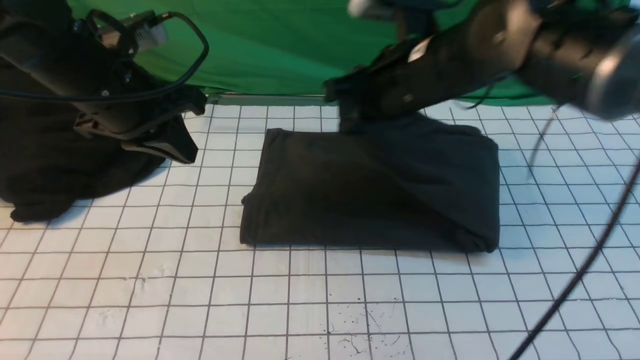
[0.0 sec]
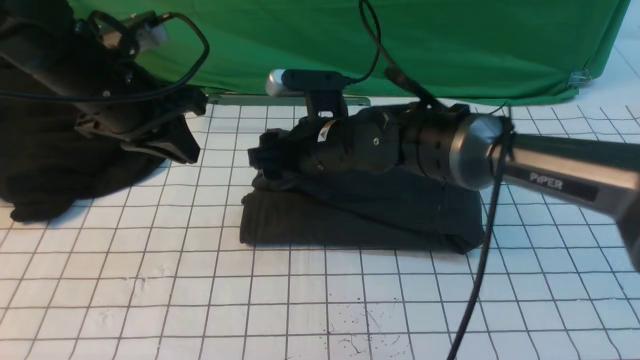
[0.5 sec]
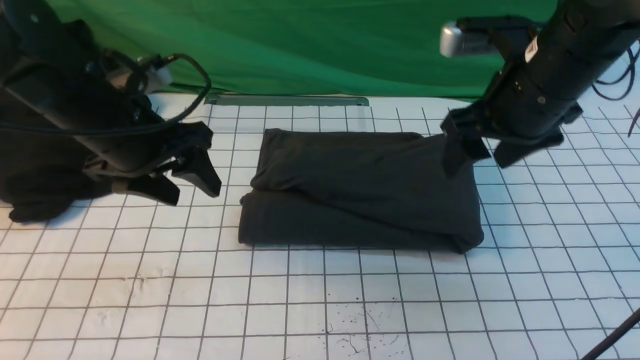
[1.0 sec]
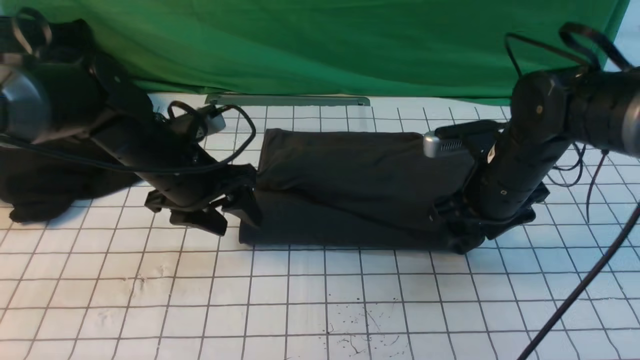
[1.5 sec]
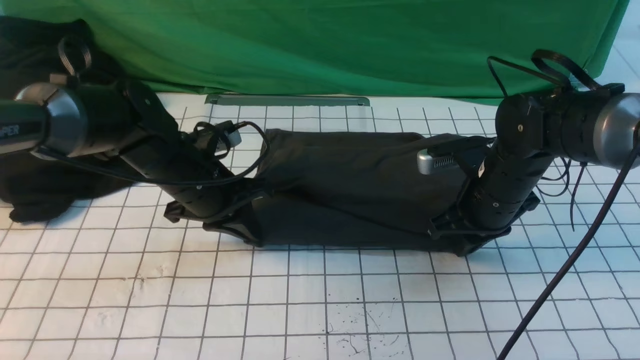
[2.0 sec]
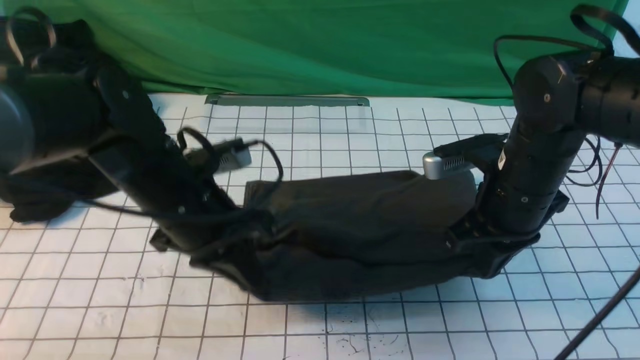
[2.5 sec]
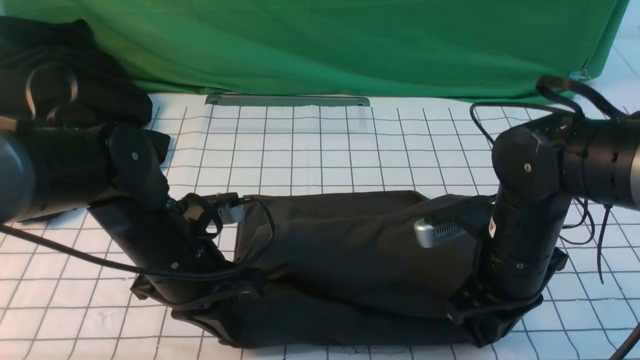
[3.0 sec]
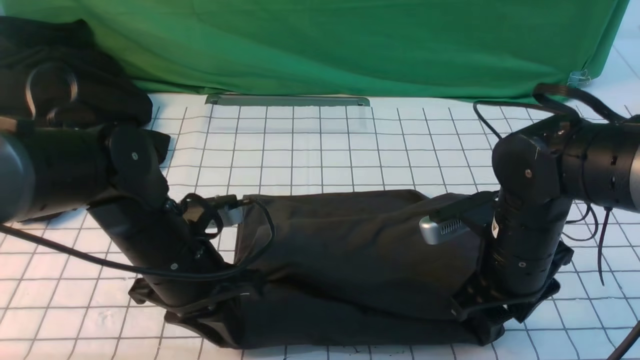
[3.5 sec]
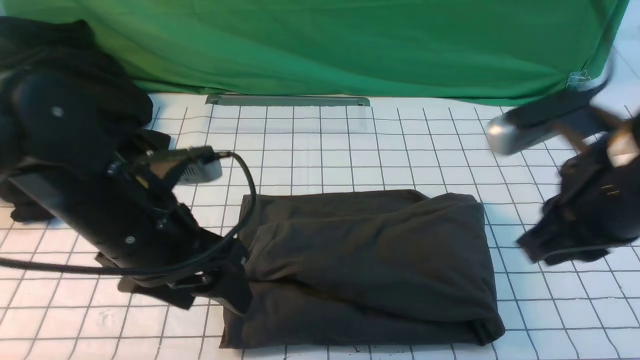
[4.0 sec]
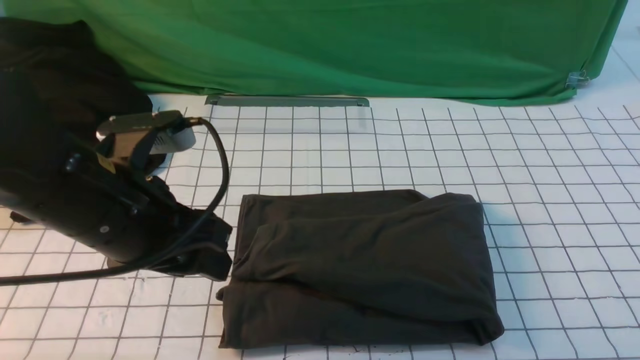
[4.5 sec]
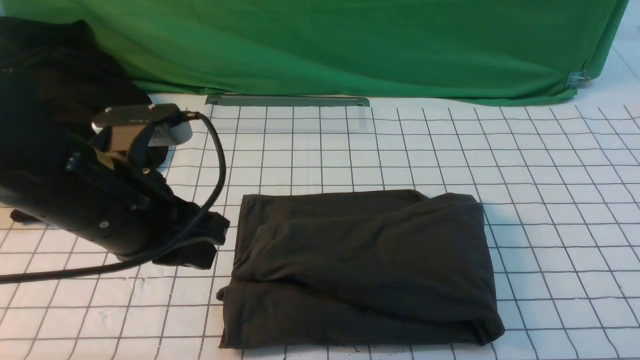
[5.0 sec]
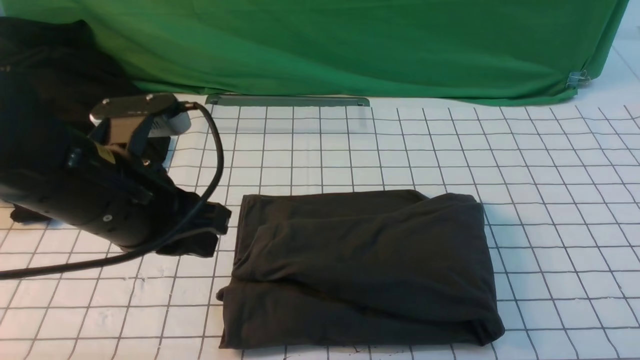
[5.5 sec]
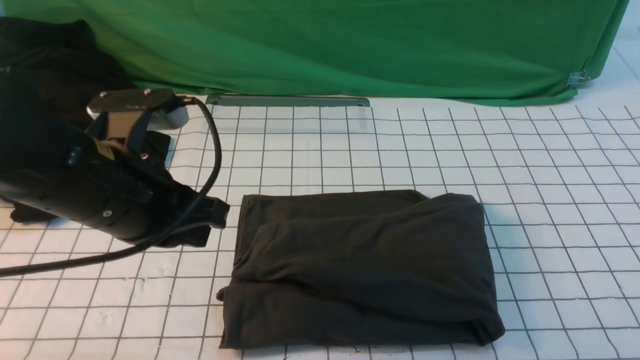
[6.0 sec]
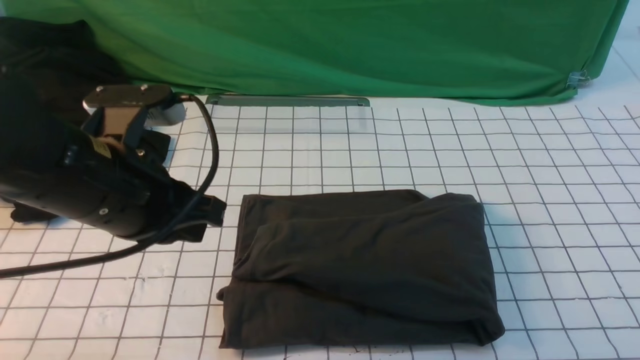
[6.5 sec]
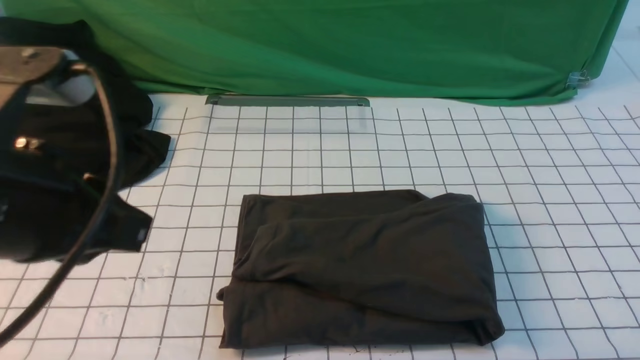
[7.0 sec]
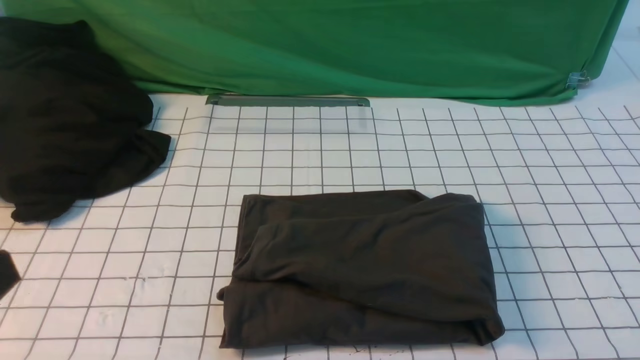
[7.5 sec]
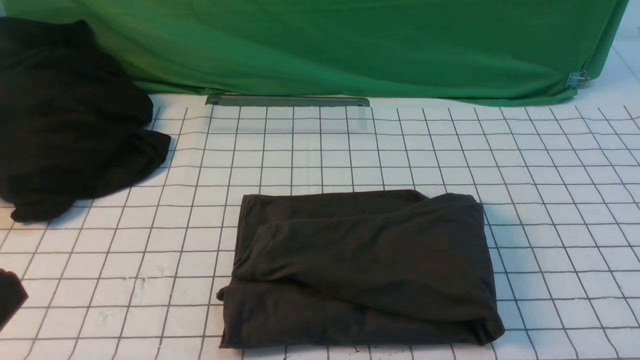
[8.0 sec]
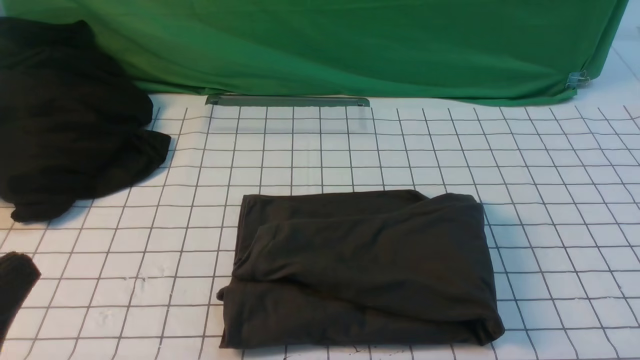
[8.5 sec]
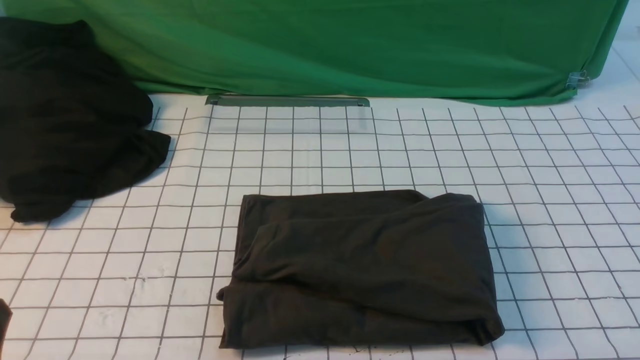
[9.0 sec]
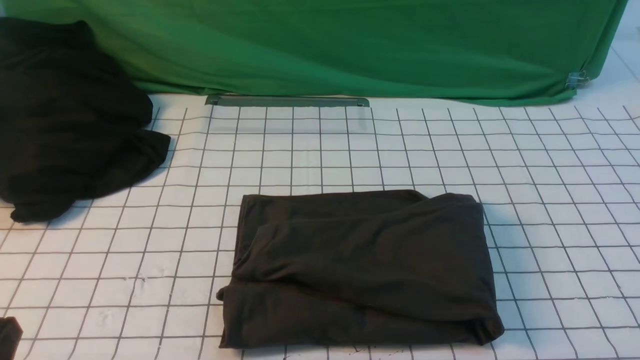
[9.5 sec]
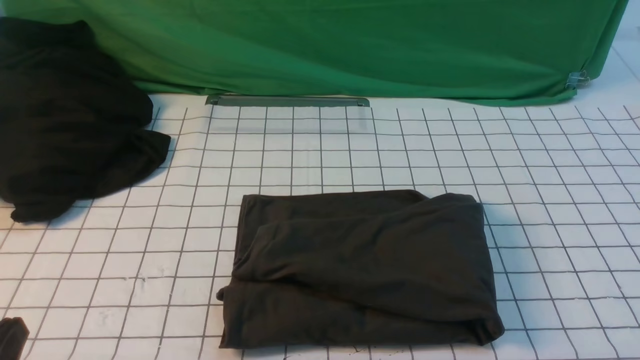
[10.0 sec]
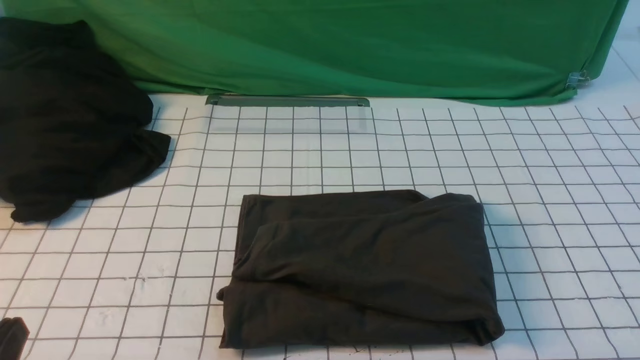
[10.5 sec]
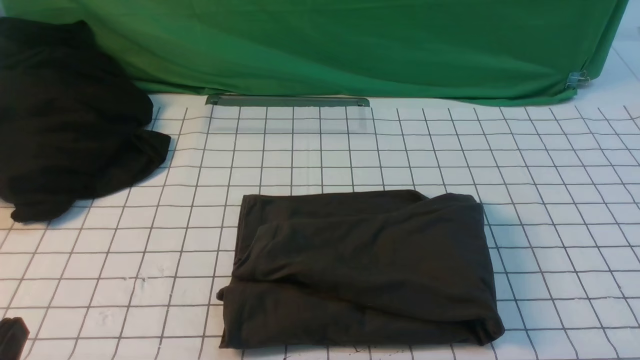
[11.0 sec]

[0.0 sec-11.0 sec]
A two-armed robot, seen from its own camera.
0.0 sec to 2.0 sec: Both grippers travel together downward and to the right, about 15 cm. The left gripper opens, then closes once more. Meanwhile the right gripper opens, then closes once more.
2.0 sec to 3.5 sec: The grippers both shift backward by approximately 10 cm.
3.5 sec to 5.5 sec: The left gripper goes about 10 cm upward, and opens, then closes again. Meanwhile the right gripper heads backward, to the right and upward, covering roughly 30 cm, and closes.
5.5 sec to 7.5 sec: The right gripper goes approximately 15 cm downward. Meanwhile the left gripper travels backward by approximately 20 cm.
9.0 sec to 11.0 sec: Both grippers stay put.

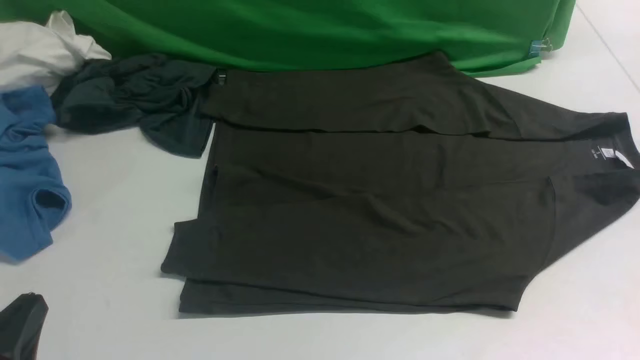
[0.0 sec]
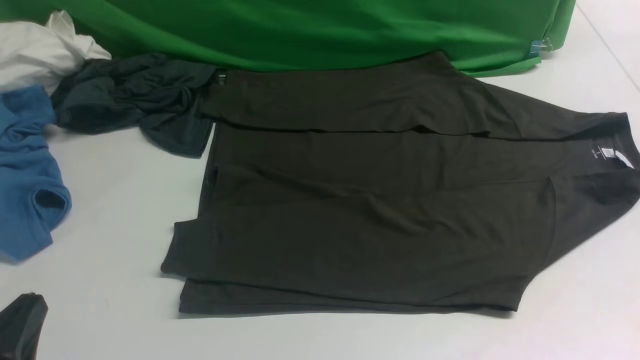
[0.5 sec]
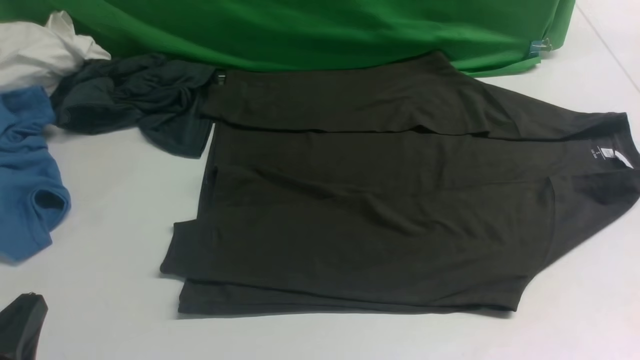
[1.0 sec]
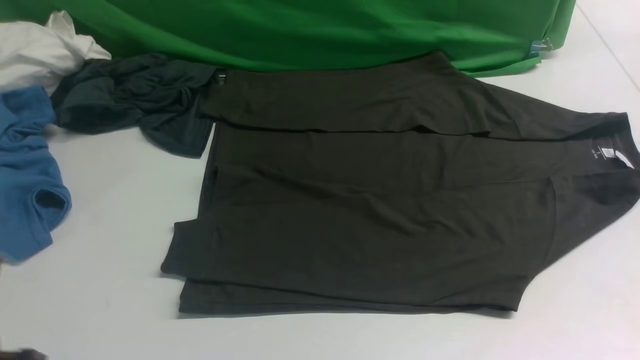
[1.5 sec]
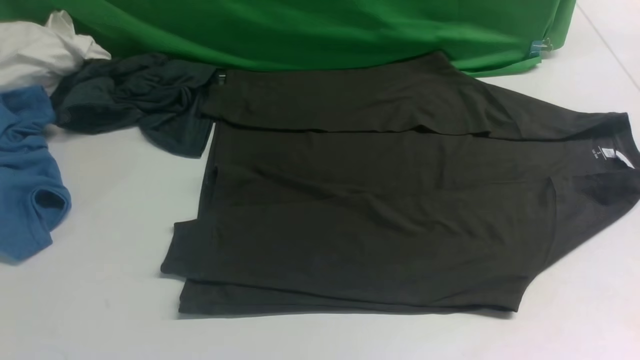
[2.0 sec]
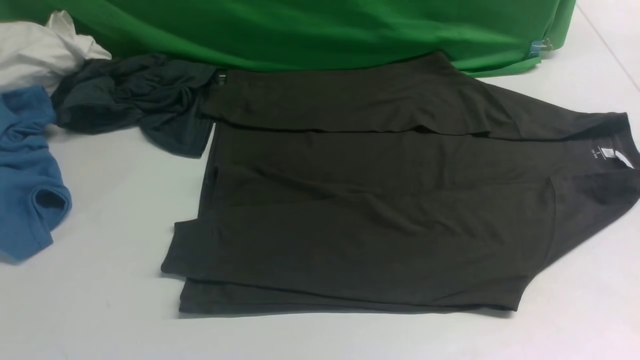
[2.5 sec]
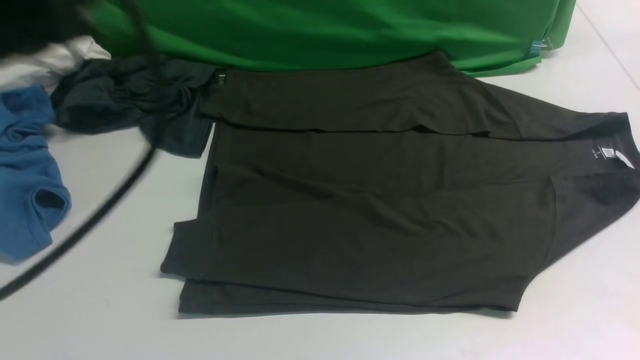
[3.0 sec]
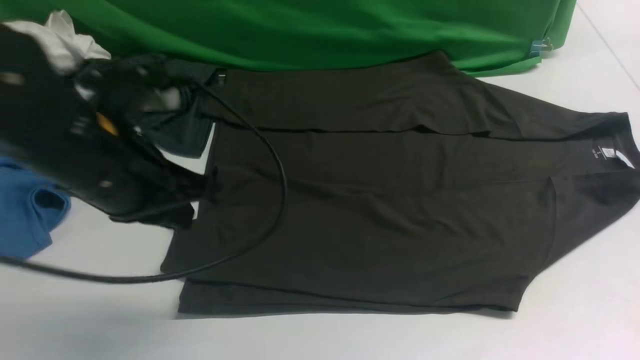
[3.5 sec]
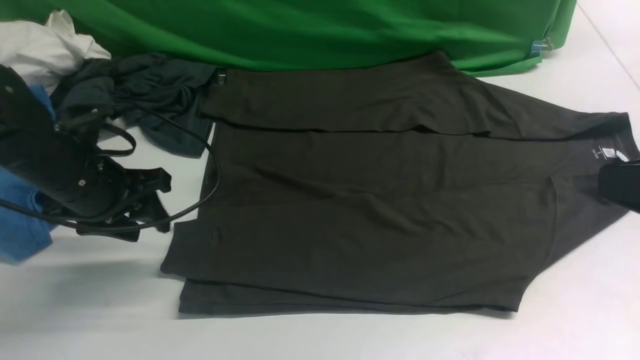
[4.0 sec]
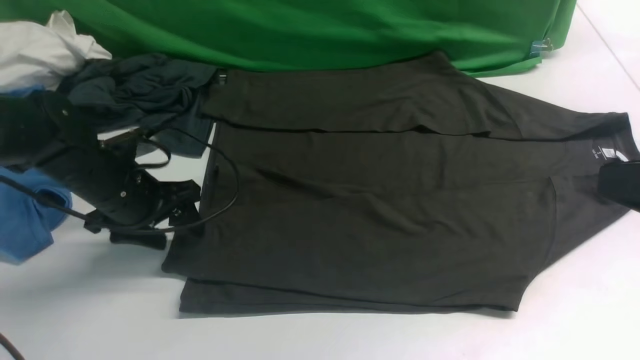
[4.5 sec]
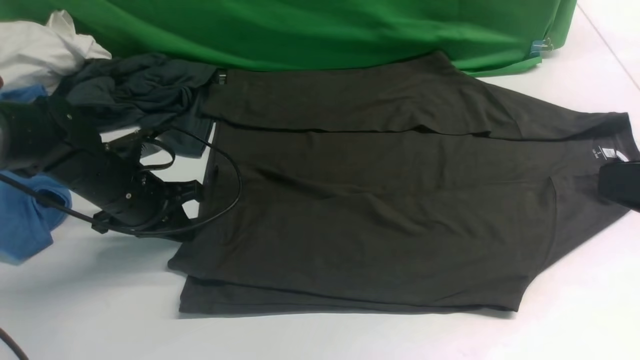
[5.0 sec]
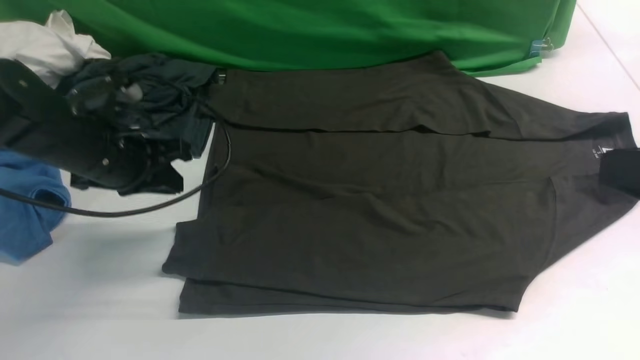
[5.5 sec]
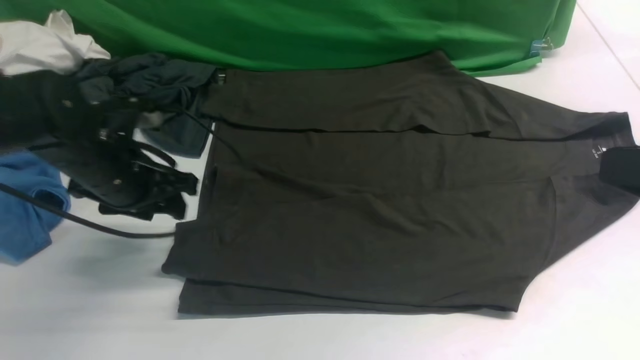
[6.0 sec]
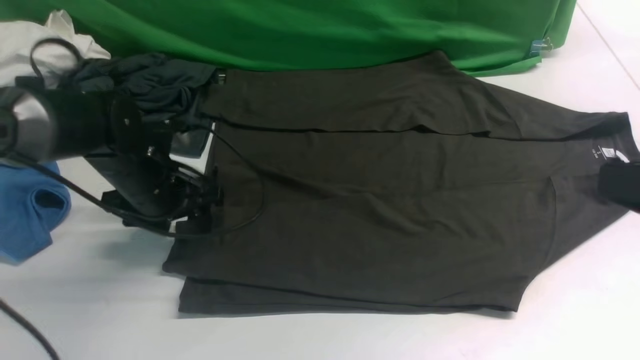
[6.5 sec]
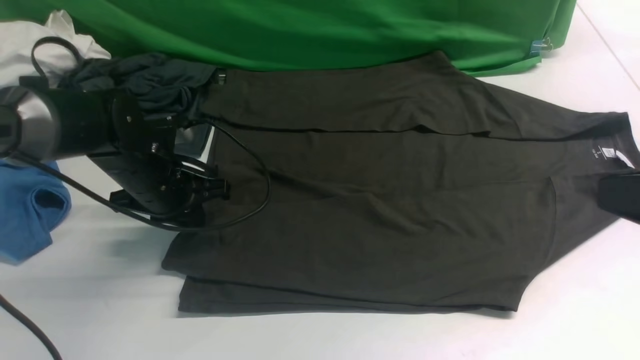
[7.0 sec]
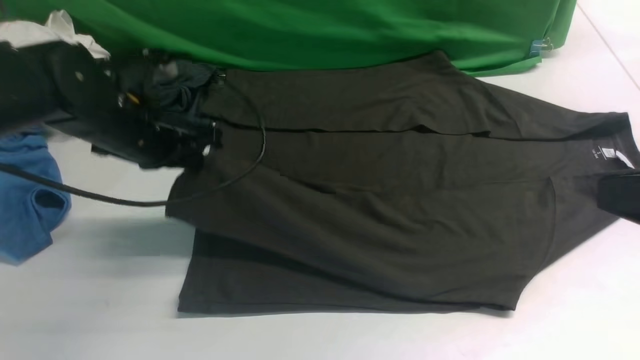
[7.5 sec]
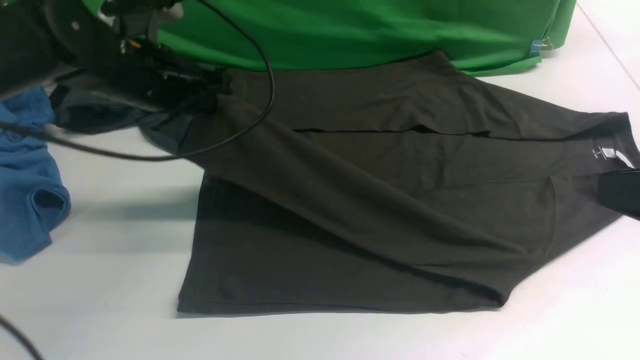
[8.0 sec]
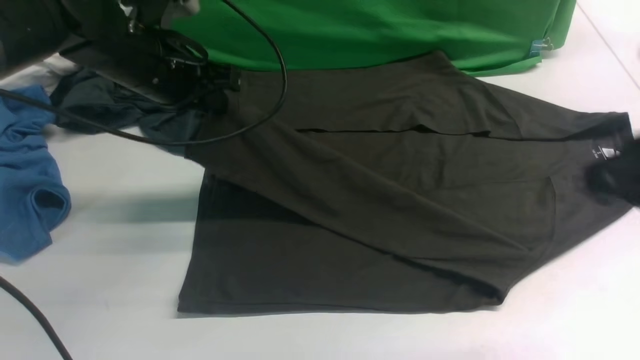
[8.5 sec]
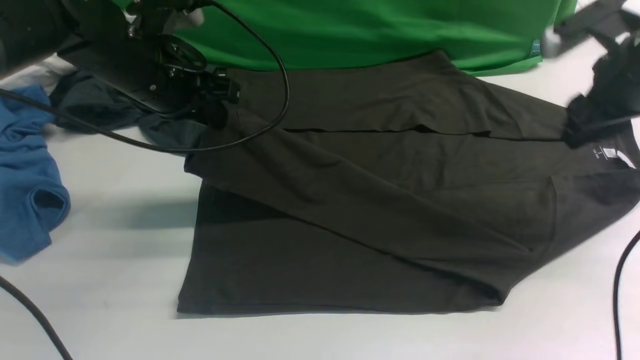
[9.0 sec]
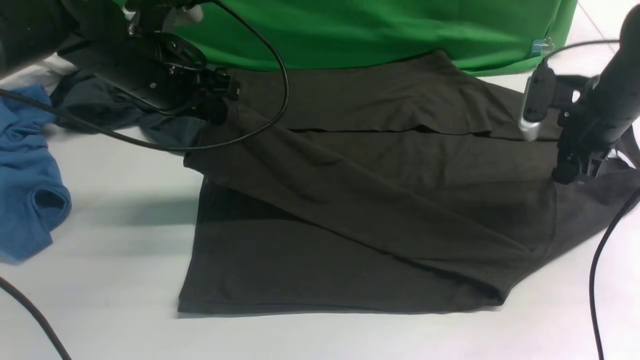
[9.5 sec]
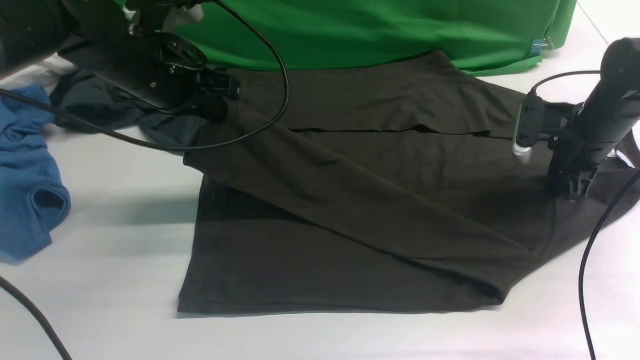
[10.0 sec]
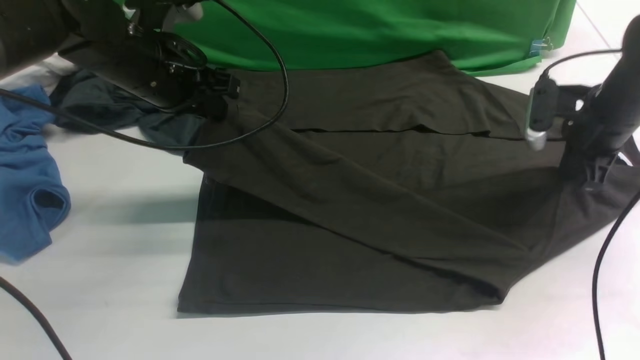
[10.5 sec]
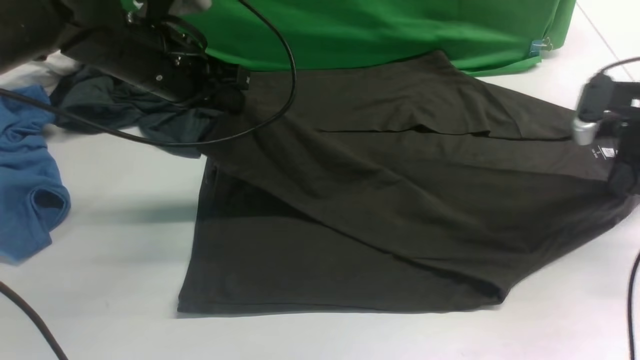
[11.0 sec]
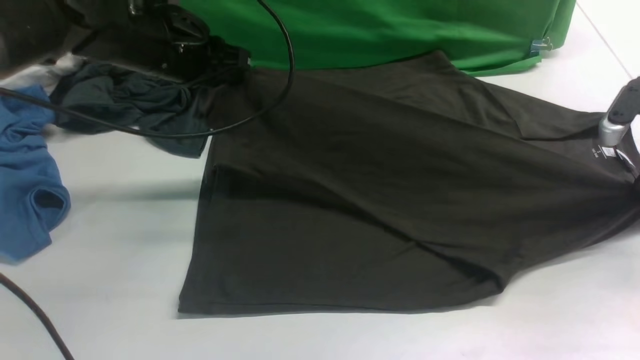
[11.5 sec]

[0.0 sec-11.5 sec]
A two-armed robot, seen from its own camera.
Step, 0.0 sec to 7.0 sec: use the left arm to clamp the cuff closest to it.
0.0 sec to 2.0 sec: The left gripper heads upward, covering approximately 15 cm.
2.0 sec to 4.0 sec: The left gripper heads forward, covering some 30 cm, and opens its fingers.
4.0 sec to 6.0 sec: The left gripper closes, then opens again.
6.0 sec to 7.5 sec: The left gripper closes up.
7.5 sec to 9.5 sec: The left gripper shifts by roughly 5 cm. The right gripper moves forward and downward, about 30 cm, and opens.
9.5 sec to 11.5 sec: The right gripper heads to the right, covering some 10 cm, and closes its fingers.
